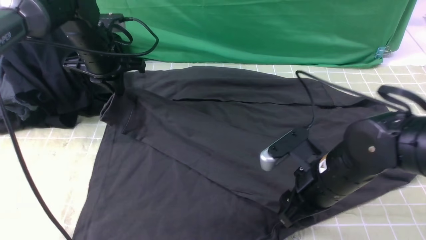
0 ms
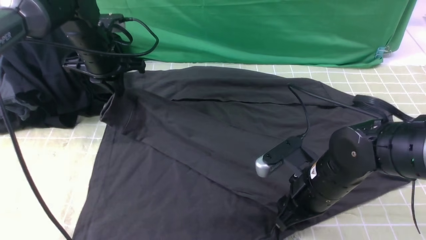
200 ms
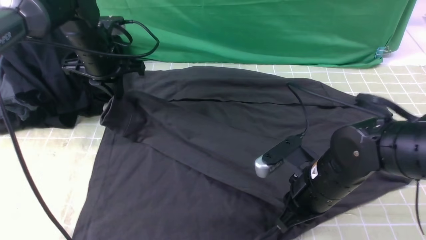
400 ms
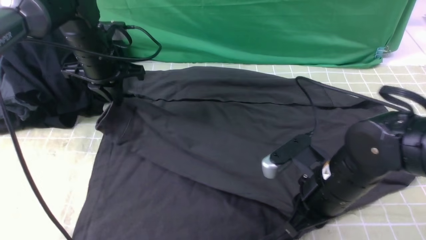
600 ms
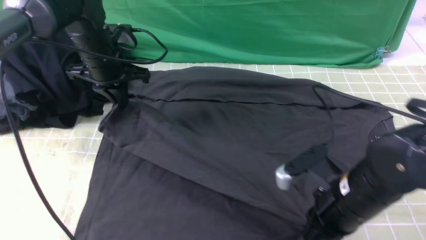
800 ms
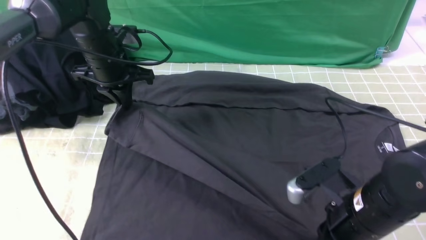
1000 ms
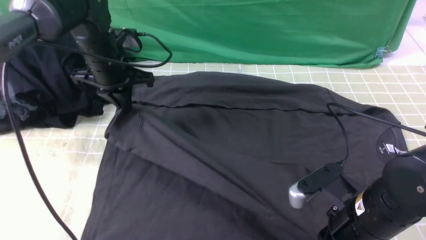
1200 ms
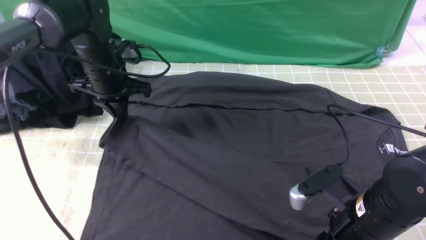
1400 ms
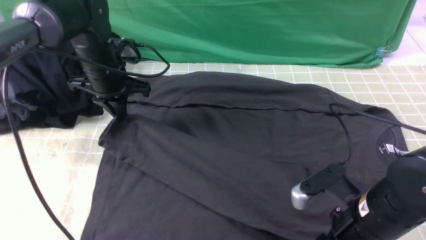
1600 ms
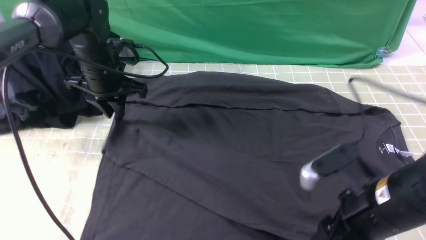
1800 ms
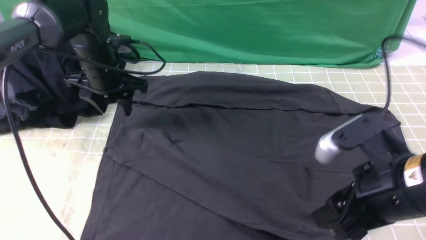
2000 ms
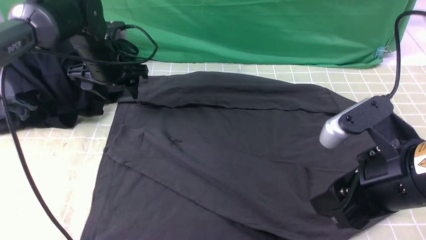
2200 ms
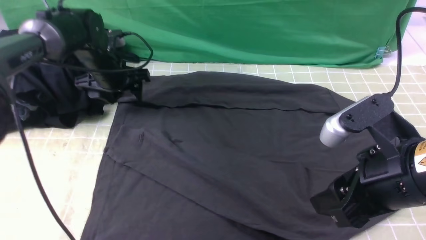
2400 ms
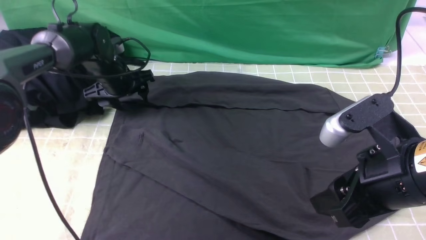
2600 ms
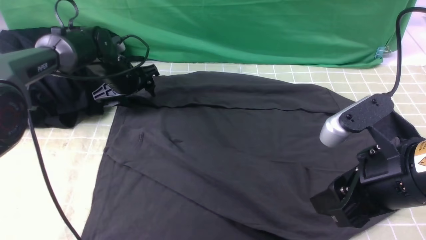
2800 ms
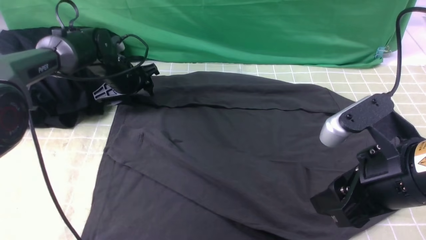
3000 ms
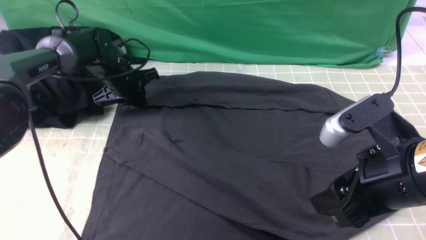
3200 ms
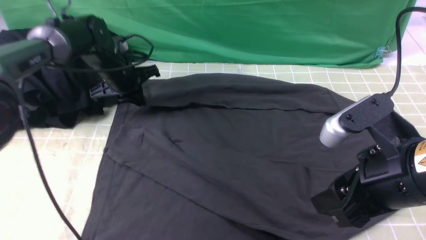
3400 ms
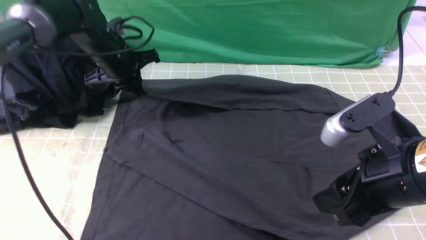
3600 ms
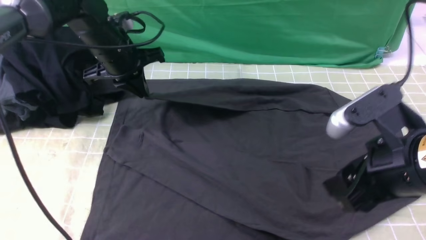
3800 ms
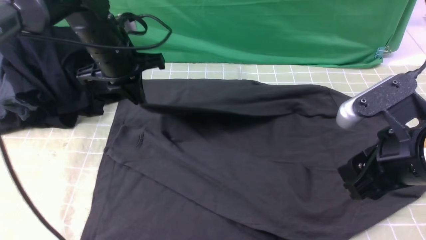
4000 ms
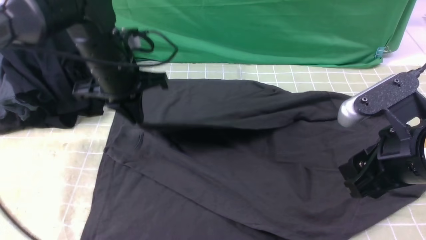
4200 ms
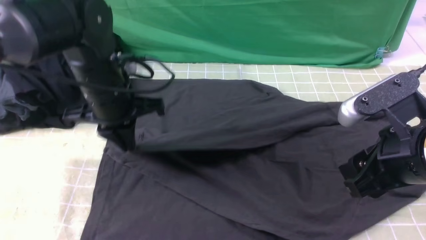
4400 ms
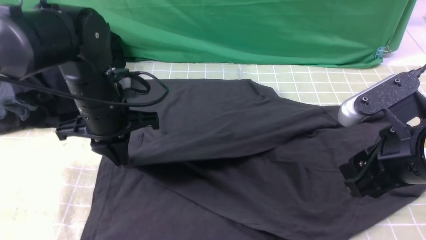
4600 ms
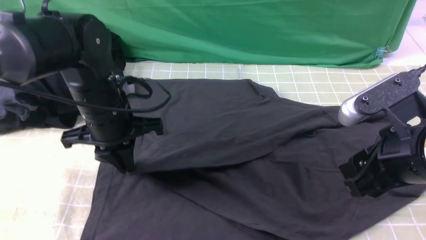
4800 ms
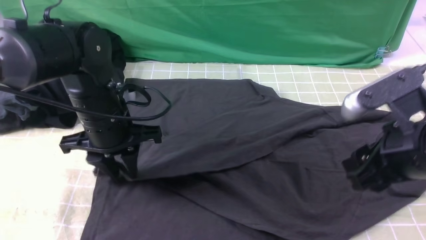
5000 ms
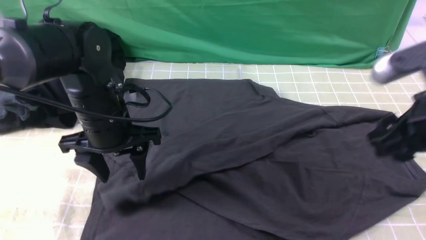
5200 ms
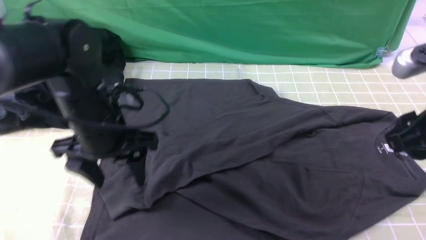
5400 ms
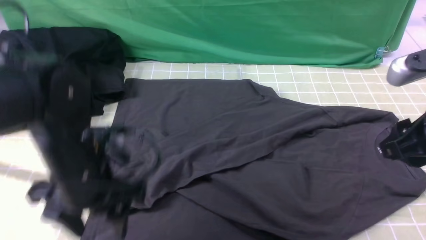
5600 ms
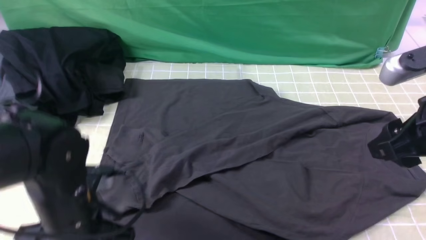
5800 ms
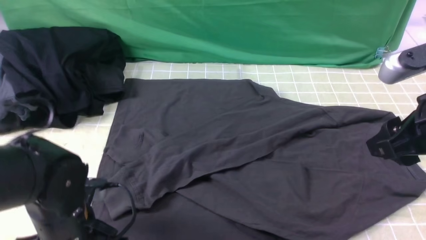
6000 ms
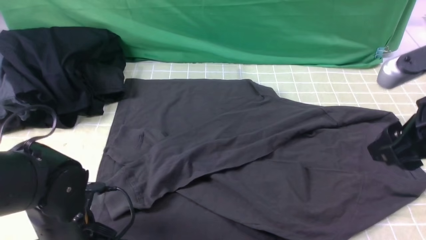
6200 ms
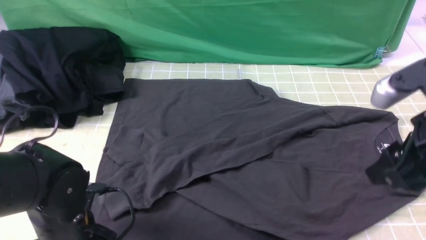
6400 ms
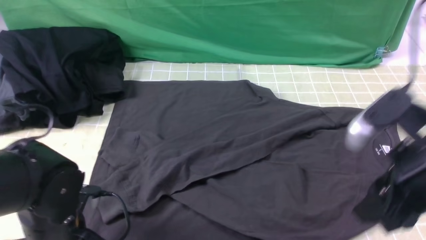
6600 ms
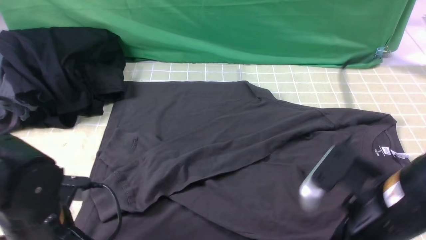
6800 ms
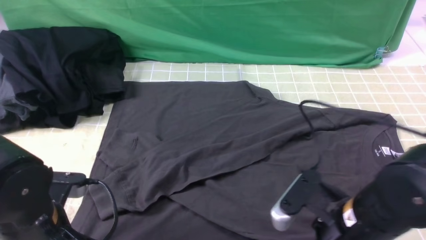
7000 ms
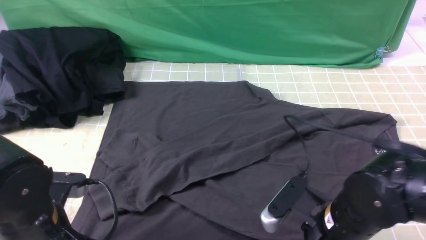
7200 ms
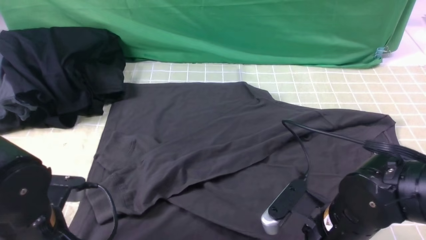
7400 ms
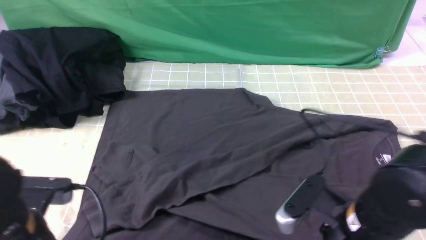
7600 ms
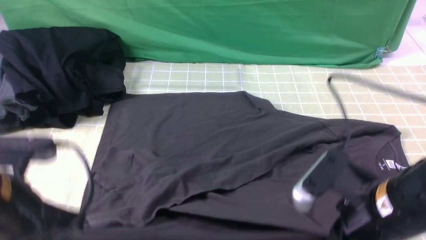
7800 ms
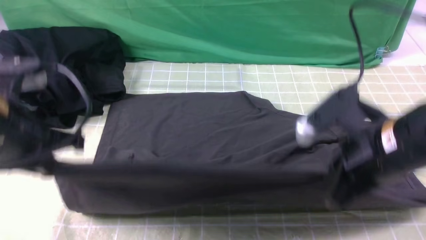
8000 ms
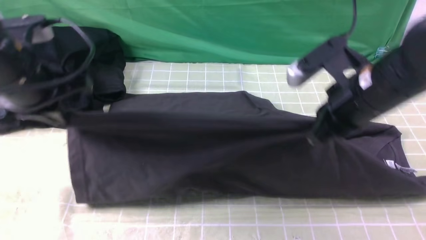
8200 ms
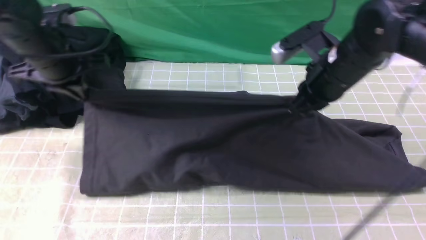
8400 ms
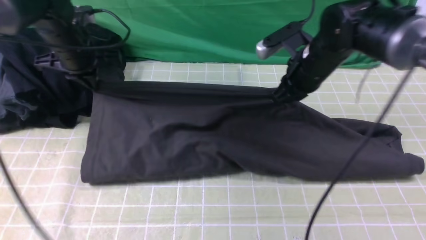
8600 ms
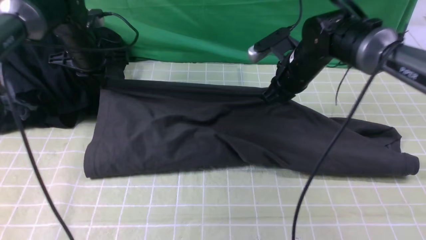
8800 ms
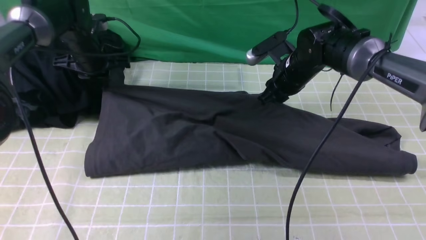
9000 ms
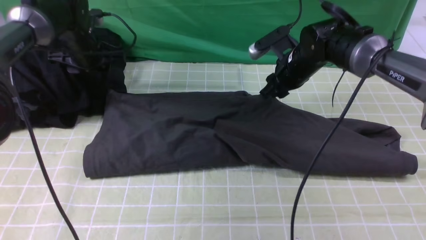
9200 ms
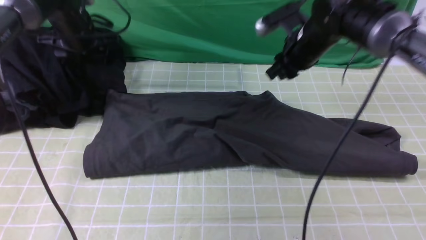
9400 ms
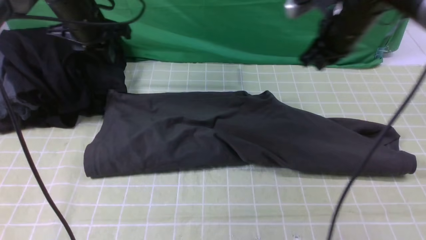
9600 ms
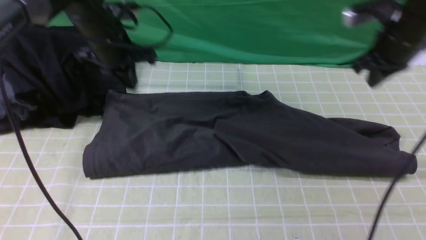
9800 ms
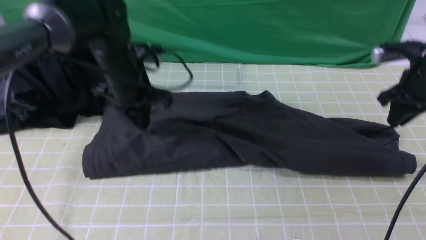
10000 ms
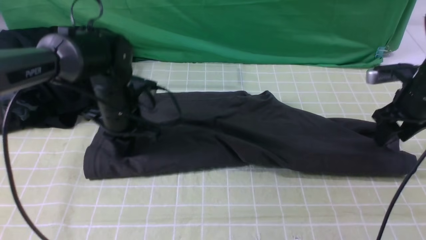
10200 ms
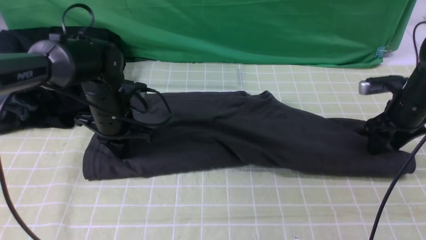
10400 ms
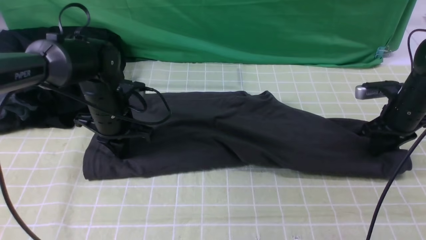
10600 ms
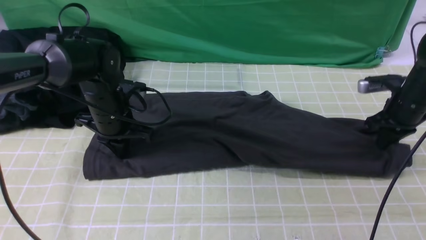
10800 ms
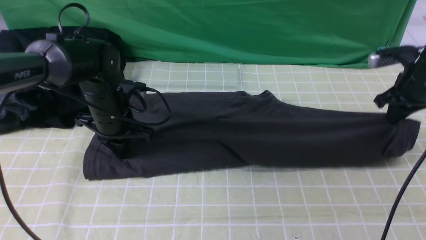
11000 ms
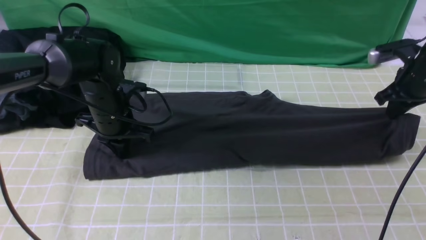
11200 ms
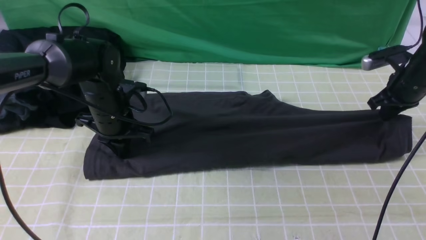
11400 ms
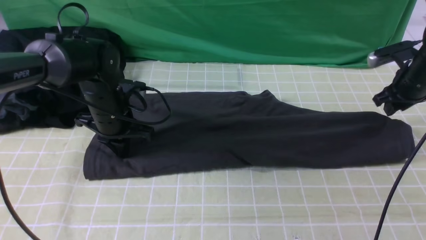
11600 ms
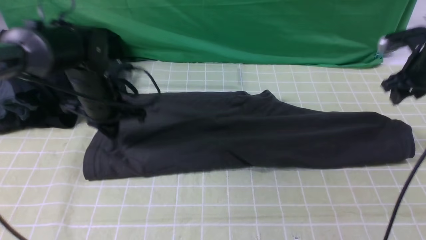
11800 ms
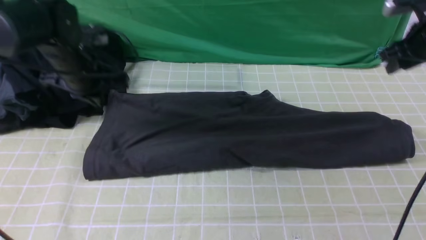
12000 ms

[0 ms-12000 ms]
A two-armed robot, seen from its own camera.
Step, 0 ms to 2000 ms: use the left arm to drag and place the cuff at the centered position on the left edge of the fabric.
Step, 2200 ms to 3200 ms: use the left arm to clamp the cuff farthest from it.
Step, 3400 ms to 5200 ms: use the left arm to drag and drop the cuff onto the cuff closest to the left arm.
Step, 5600 ms to 7200 ms: use both arms simultaneously to clamp the lower edge of the clothing fabric.
0 ms to 1600 ms: The right gripper shifts about 5 cm backward, and closes, then opens again.
1600 ms to 3000 ms: The right gripper shifts roughly 10 cm upward. Meanwhile the left gripper moves downward and forward, roughly 10 cm, and opens.
3000 ms to 4400 ms: The left gripper heads backward and upward, covering approximately 20 cm, and closes its fingers.
4400 ms to 6000 ms: The right gripper shifts by approximately 5 cm; the left gripper heads backward and downward, covering some 20 cm, and opens up.
6000 ms to 7600 ms: The right gripper travels downward and to the left by roughly 15 cm, and closes its fingers; the left gripper travels upward by approximately 5 cm, and closes.
7600 ms to 9000 ms: Both grippers travel together forward, about 30 cm. The right gripper opens up.
9000 ms to 10400 ms: The right gripper goes about 20 cm to the right. The left gripper shifts approximately 15 cm backward, to the right and downward.
10400 ms to 12000 ms: The two grippers go roughly 10 cm upward. The right gripper closes, then opens again.

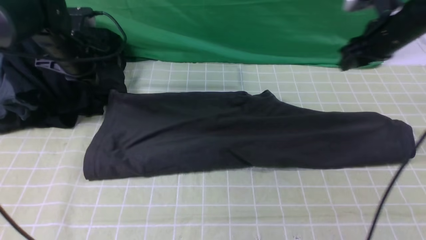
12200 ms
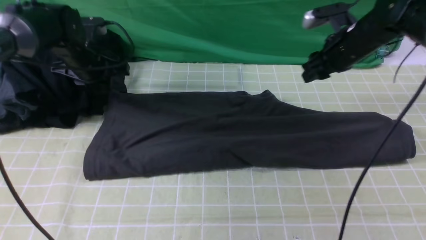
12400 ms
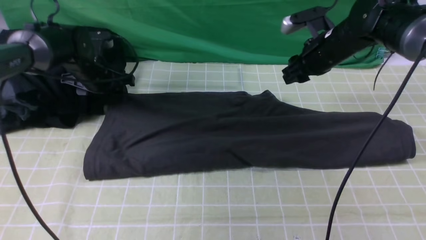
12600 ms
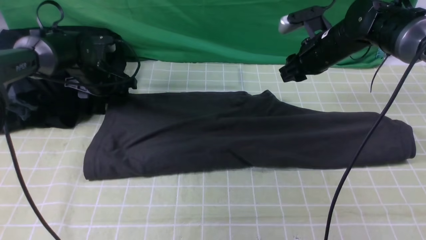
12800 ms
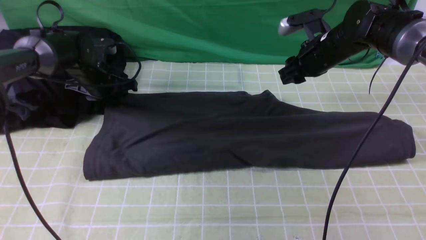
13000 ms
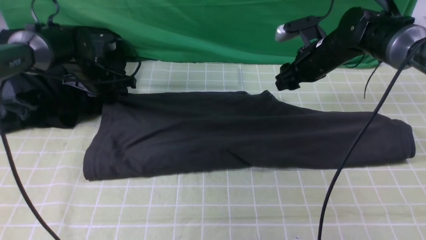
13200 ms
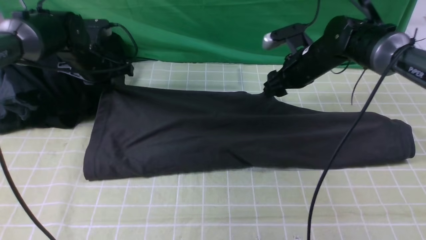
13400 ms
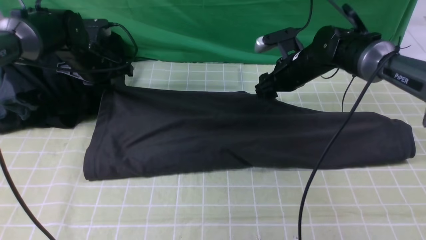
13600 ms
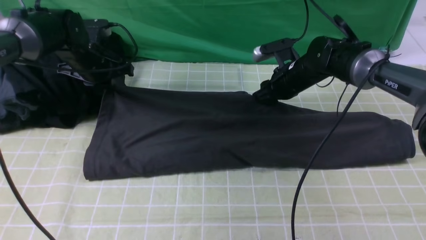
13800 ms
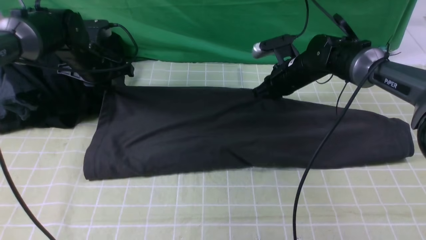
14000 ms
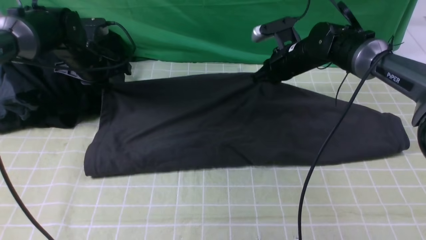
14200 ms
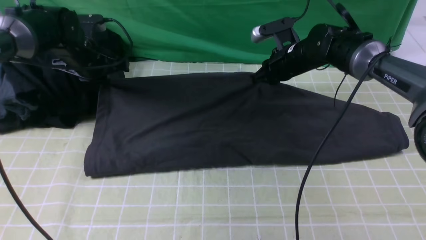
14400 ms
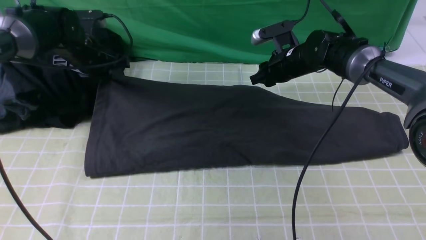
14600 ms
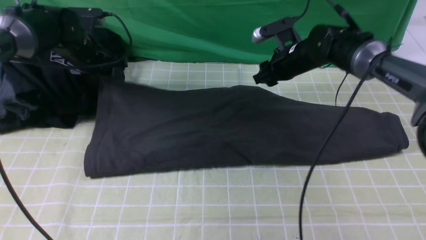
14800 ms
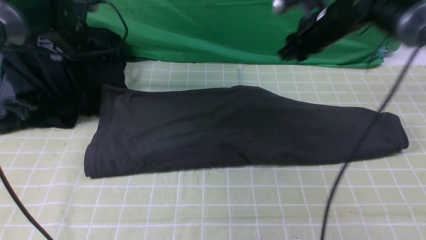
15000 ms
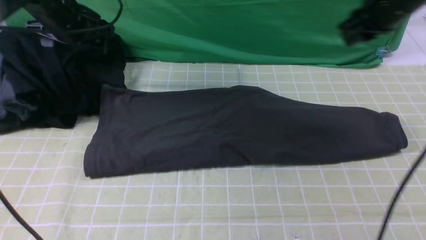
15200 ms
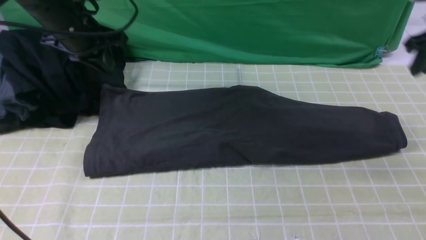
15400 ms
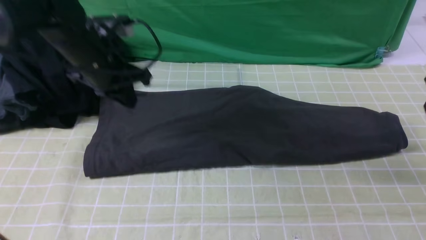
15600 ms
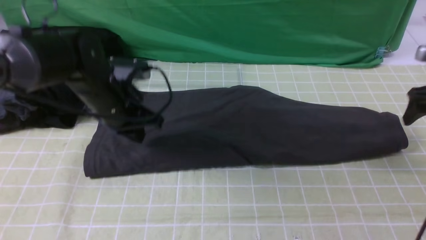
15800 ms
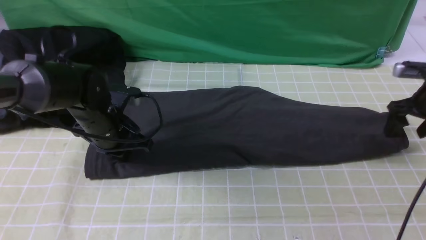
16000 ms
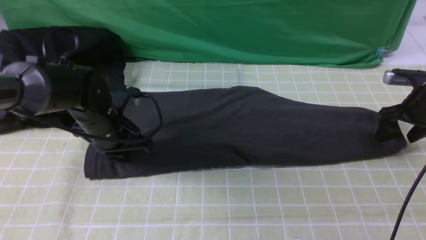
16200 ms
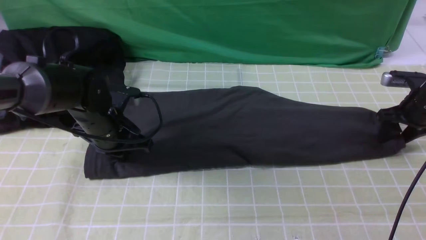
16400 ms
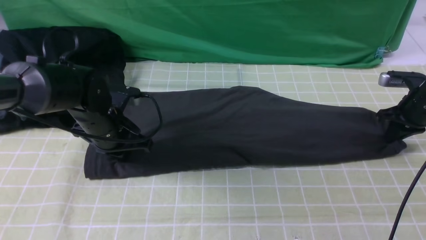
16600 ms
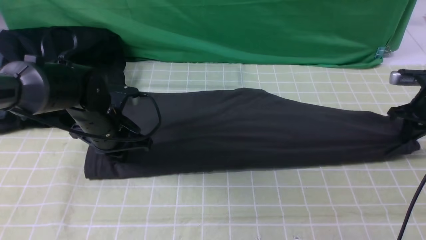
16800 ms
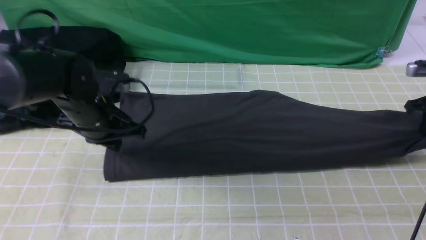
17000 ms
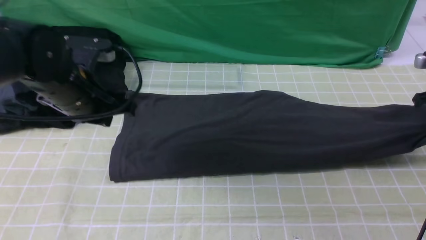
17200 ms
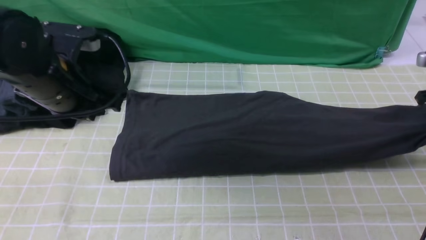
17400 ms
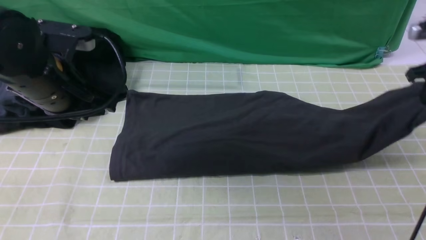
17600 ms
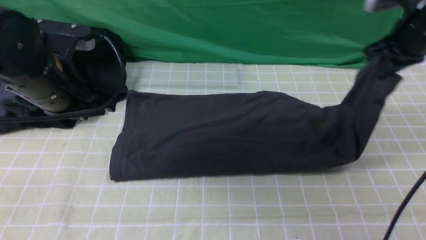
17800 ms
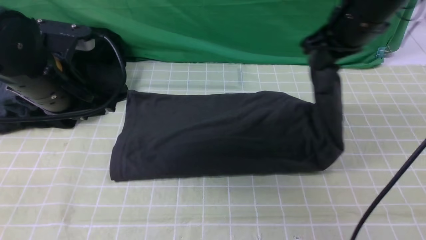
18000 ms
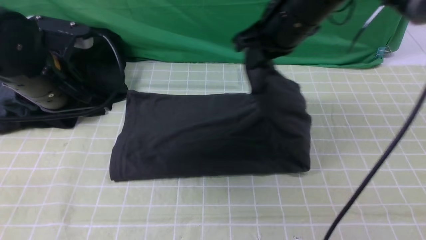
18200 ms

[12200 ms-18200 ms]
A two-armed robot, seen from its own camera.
Step, 12200 ms to 14800 ms: use both arms to drag the lower edge of the fabric forward and fold it over the upper edge.
Step, 15000 ms to 16600 ms: use the right arm to clamp the right edge of the fabric.
12200 ms to 13800 ms: The right gripper shifts approximately 15 cm to the left and downward, while the left gripper opens, then closes once more.
13800 ms to 15200 ms: The left gripper shifts about 10 cm upward, and opens; the right gripper goes some 20 cm upward and to the right.
15200 ms to 16600 ms: The left gripper heads downward, backward and to the right, covering about 15 cm, and closes its fingers; the right gripper is displaced downward and to the right by about 20 cm, and opens, then closes again.
16600 ms to 18200 ms: The right gripper heads to the left and upward, covering some 35 cm; the left gripper shifts approximately 15 cm upward and backward.
